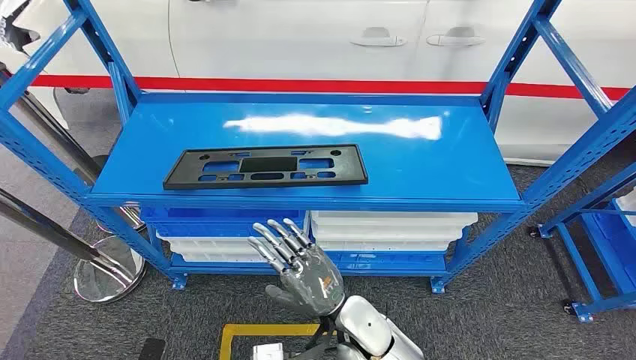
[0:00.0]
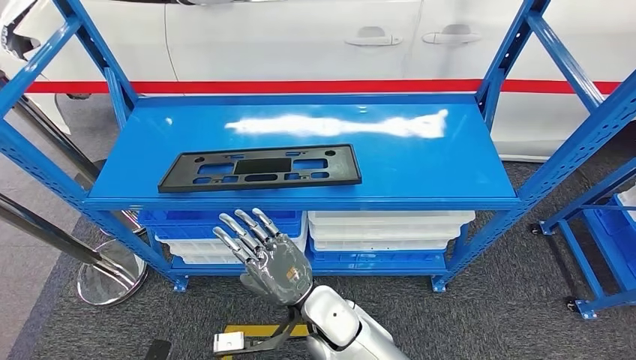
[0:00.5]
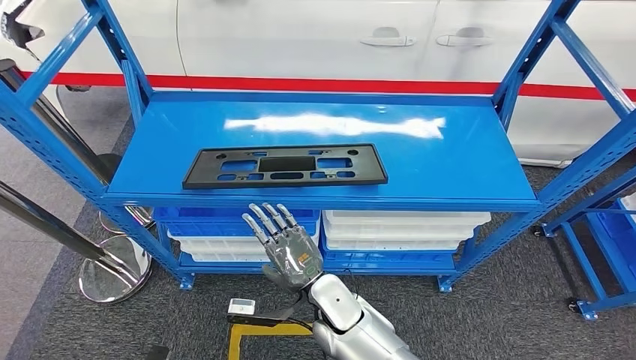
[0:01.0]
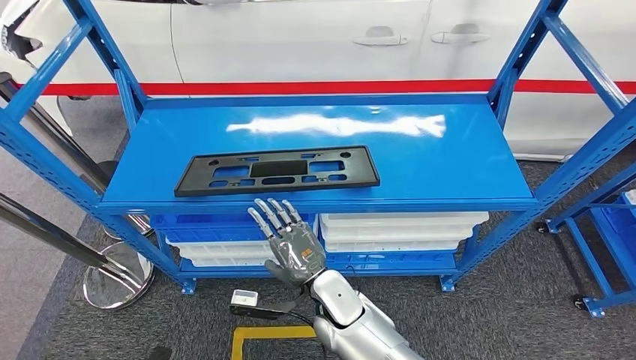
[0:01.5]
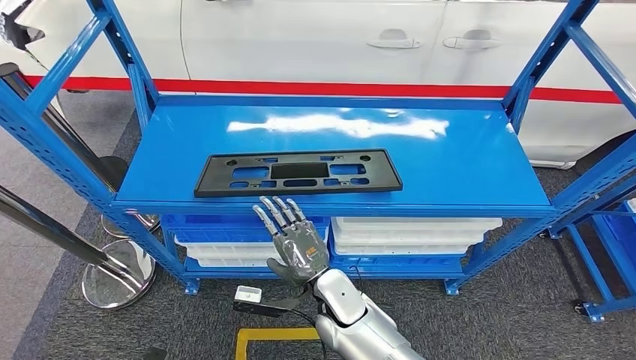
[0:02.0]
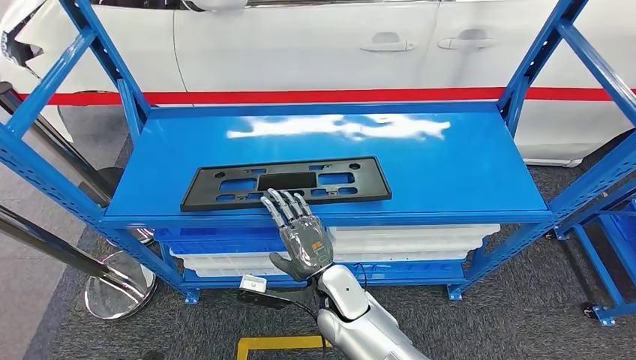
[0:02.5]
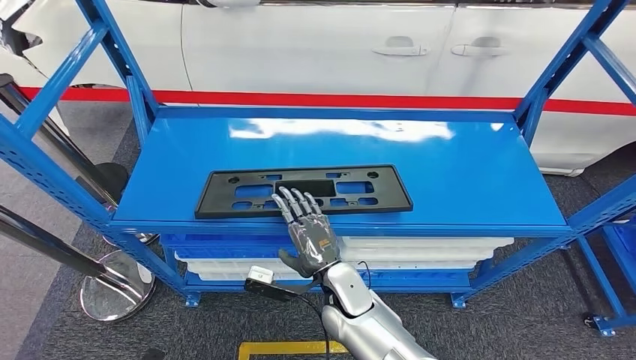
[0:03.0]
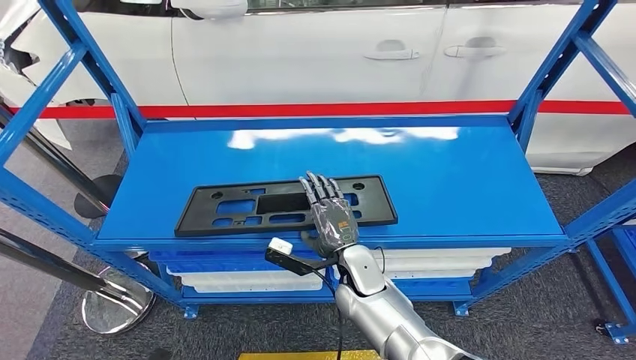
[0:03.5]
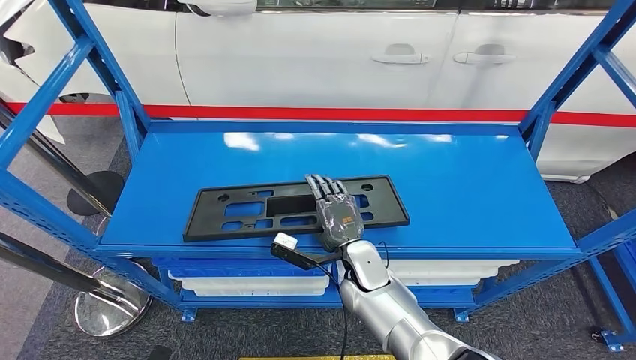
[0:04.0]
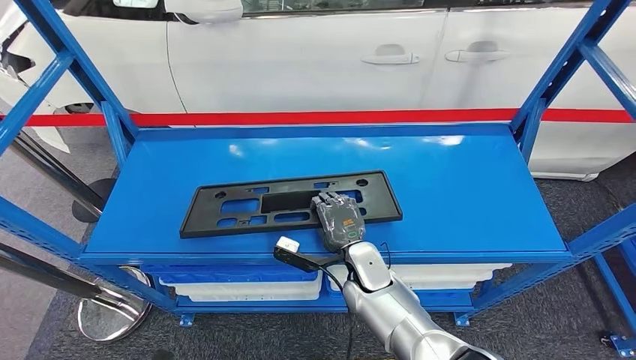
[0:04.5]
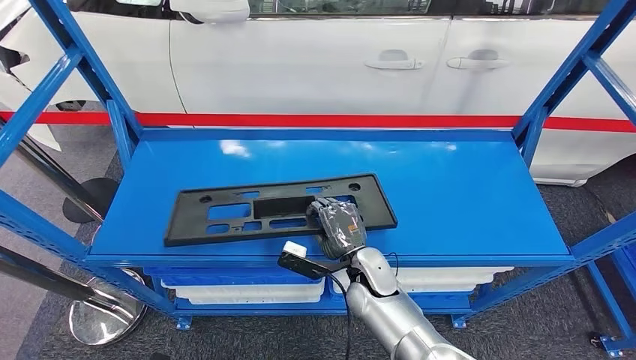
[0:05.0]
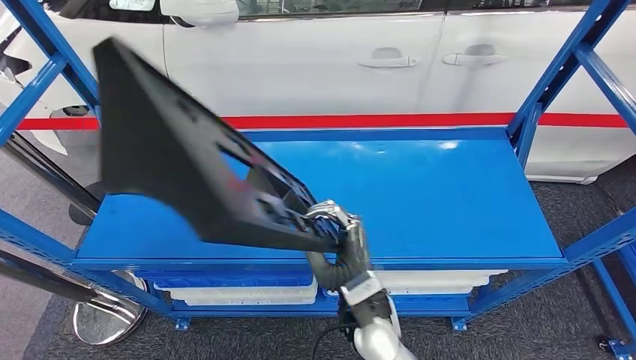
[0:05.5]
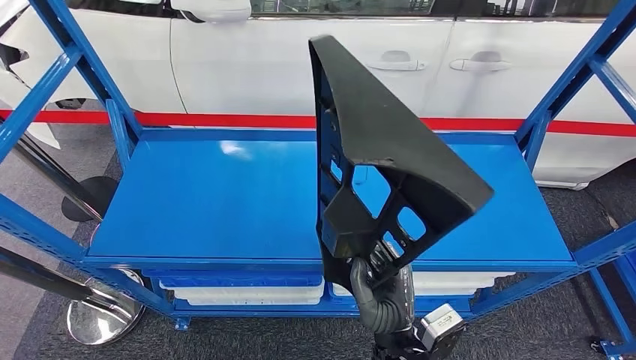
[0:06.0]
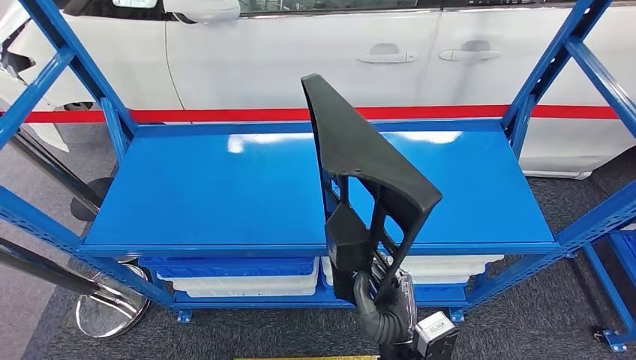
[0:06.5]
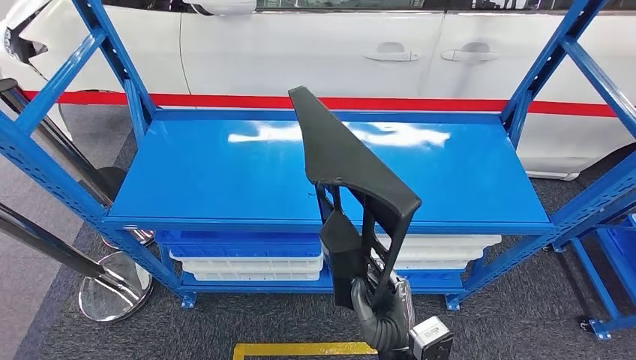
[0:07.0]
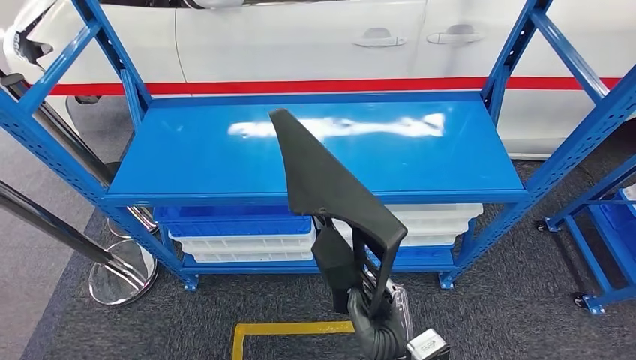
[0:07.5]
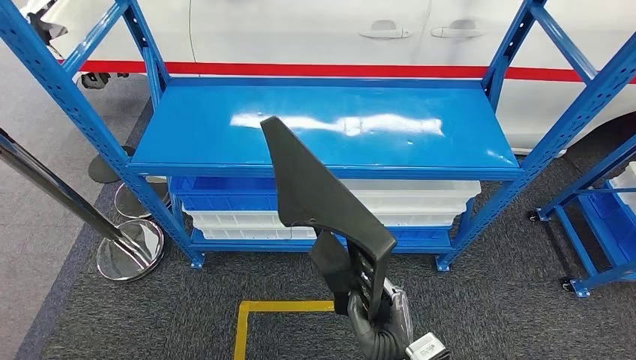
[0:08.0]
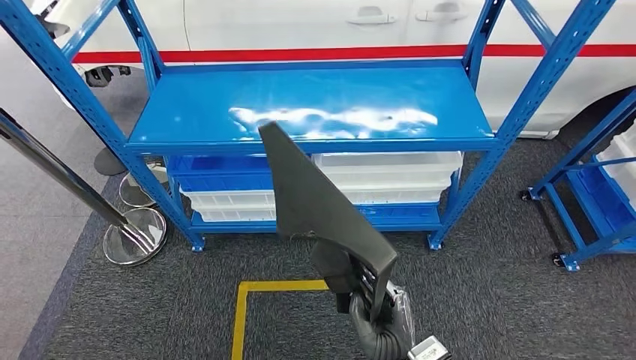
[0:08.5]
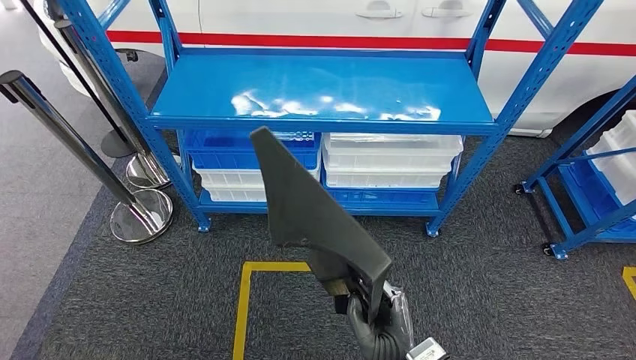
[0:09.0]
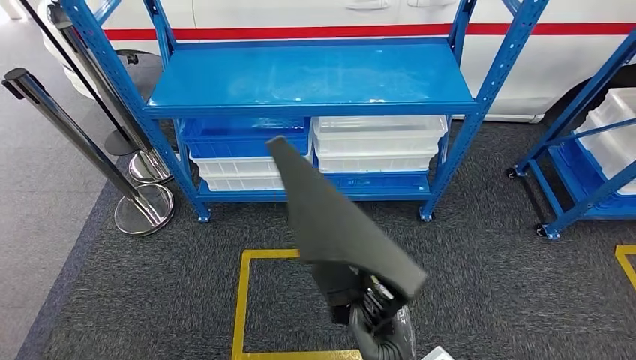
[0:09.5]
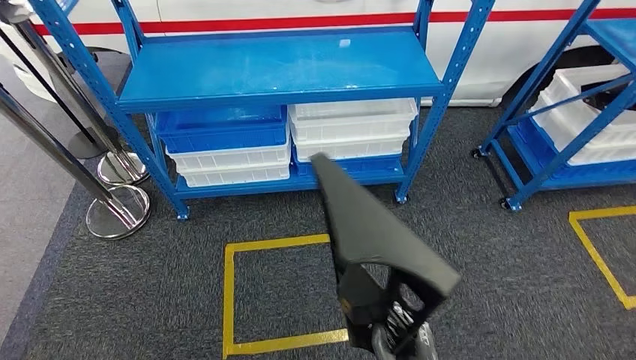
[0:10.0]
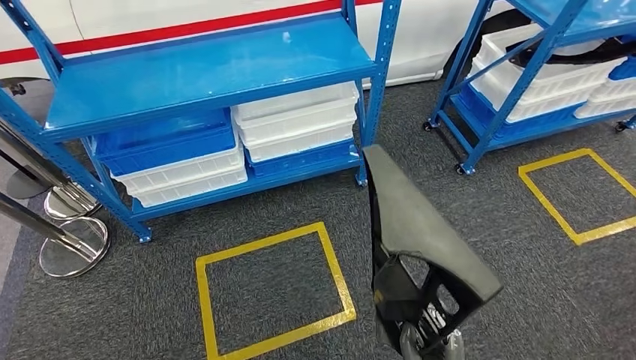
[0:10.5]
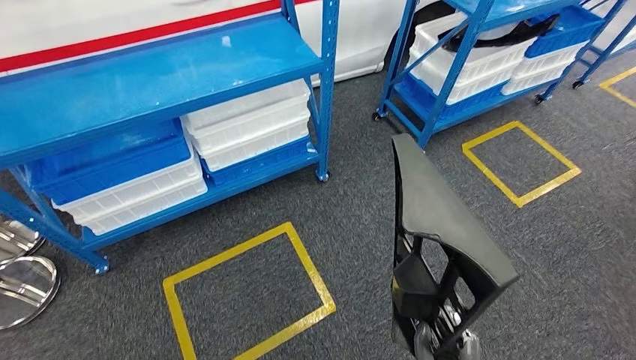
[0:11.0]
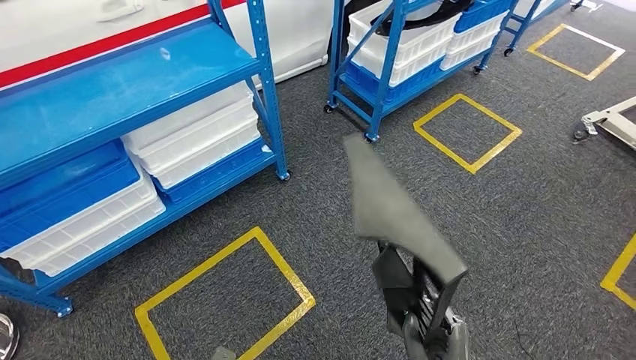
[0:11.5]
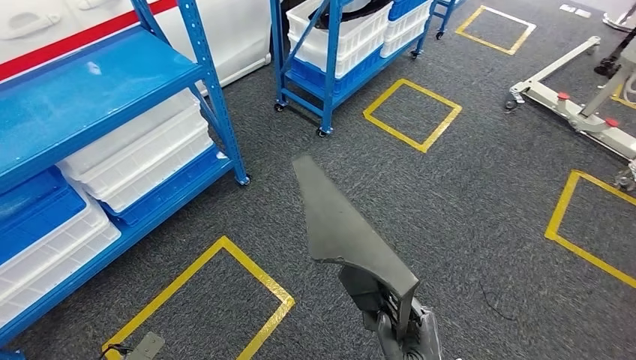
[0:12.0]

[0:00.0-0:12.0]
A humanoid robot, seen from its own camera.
Step, 0:00.0 to 0:08.0: Pick up the large material from the shelf.

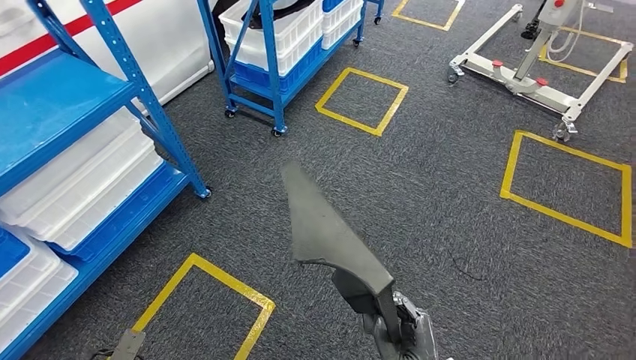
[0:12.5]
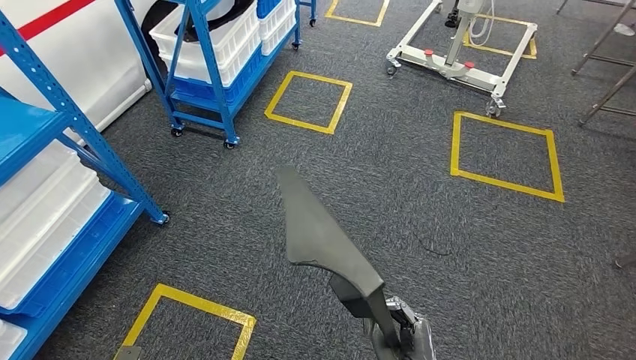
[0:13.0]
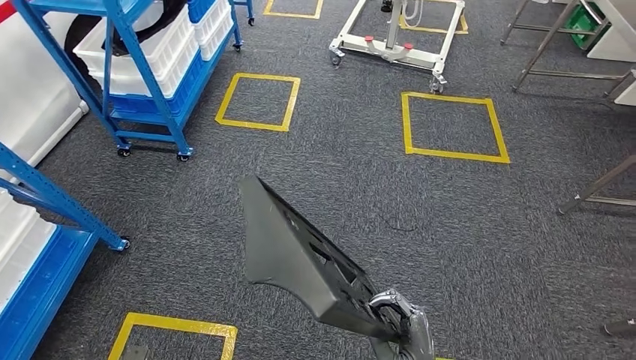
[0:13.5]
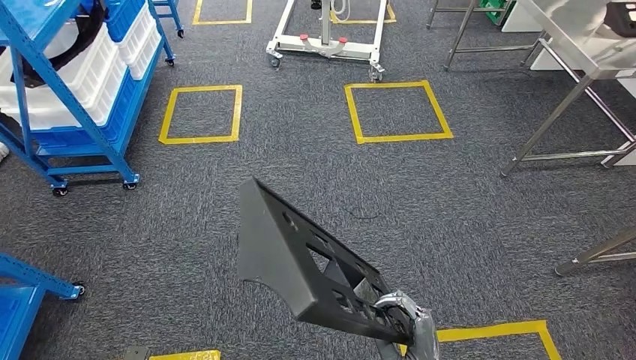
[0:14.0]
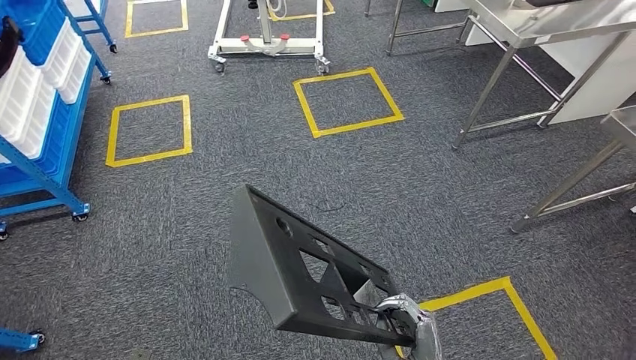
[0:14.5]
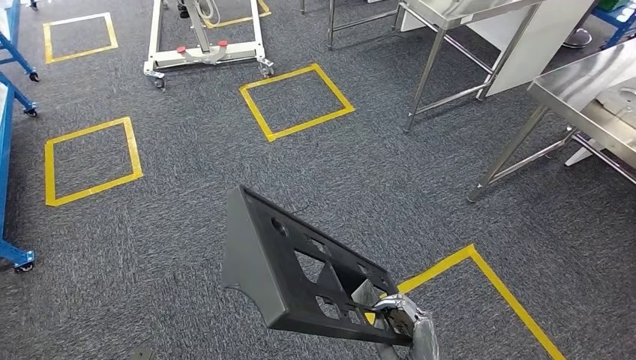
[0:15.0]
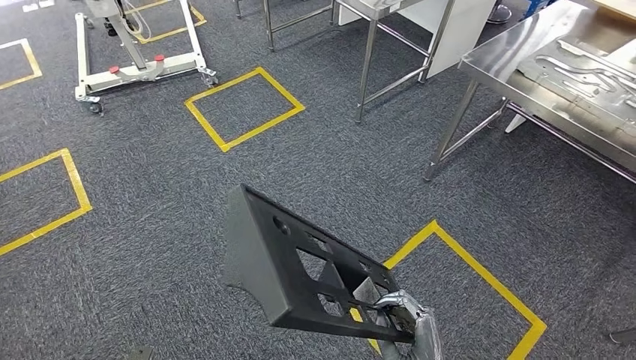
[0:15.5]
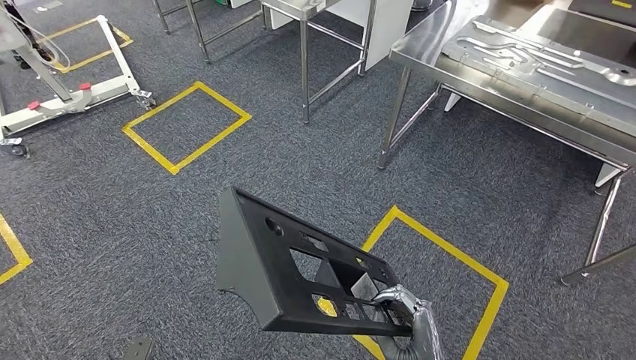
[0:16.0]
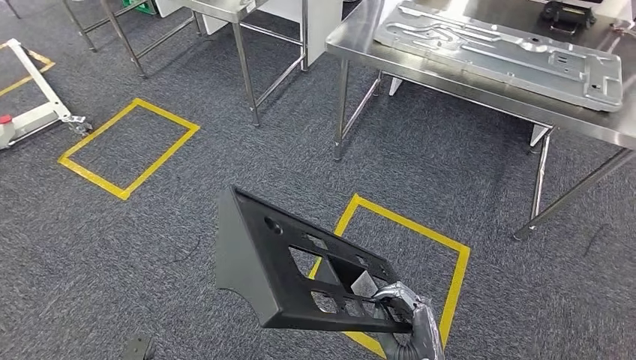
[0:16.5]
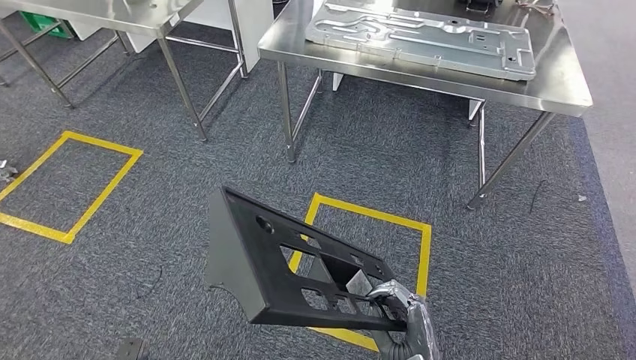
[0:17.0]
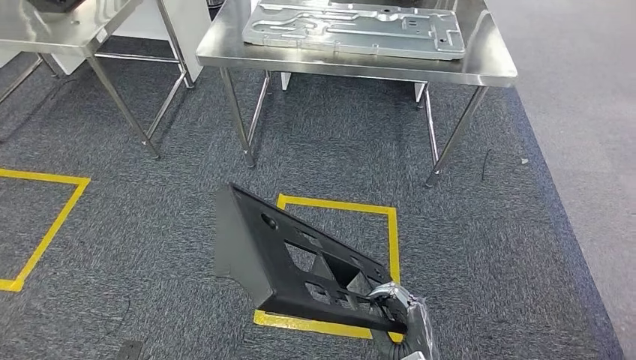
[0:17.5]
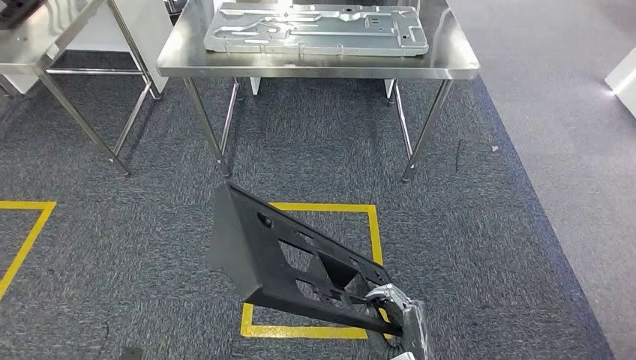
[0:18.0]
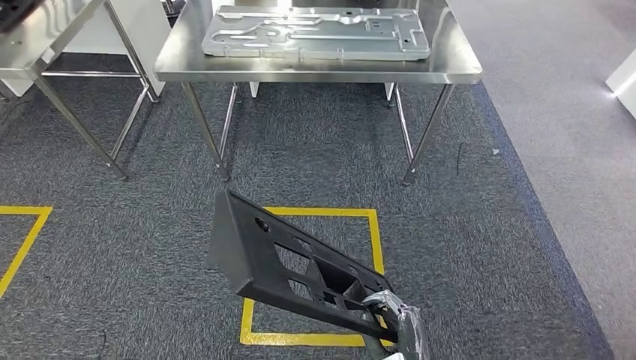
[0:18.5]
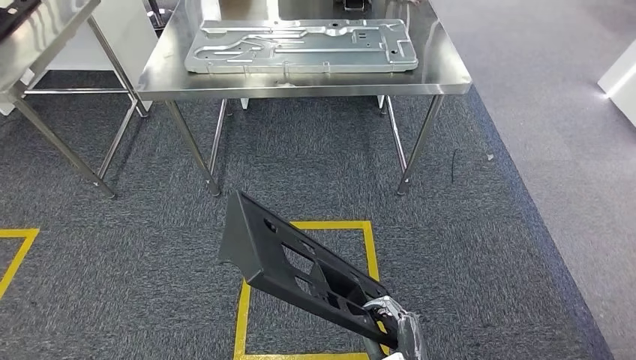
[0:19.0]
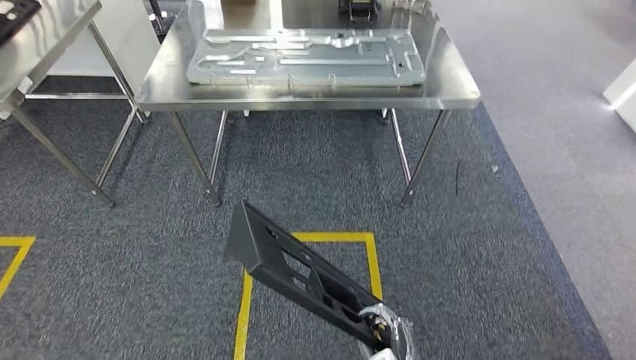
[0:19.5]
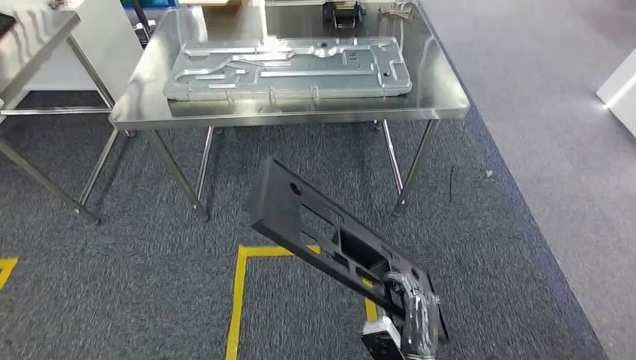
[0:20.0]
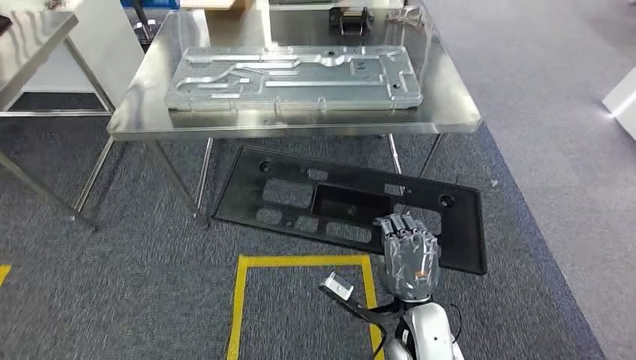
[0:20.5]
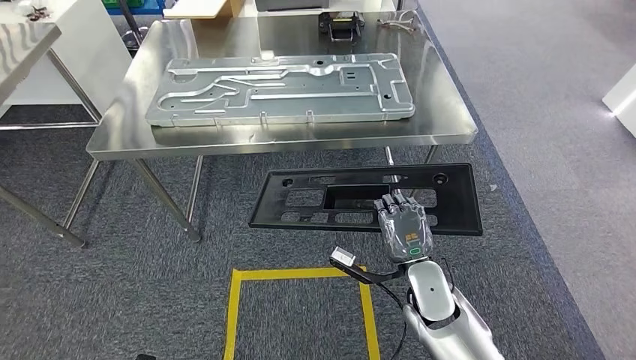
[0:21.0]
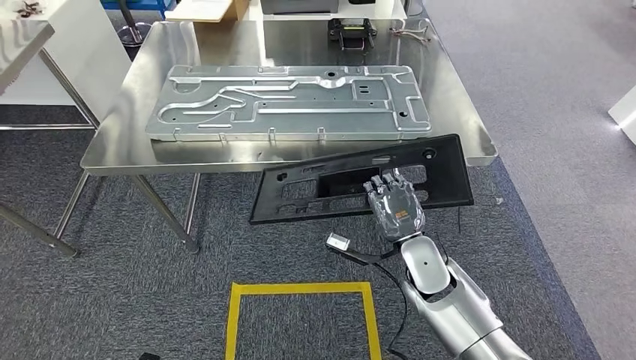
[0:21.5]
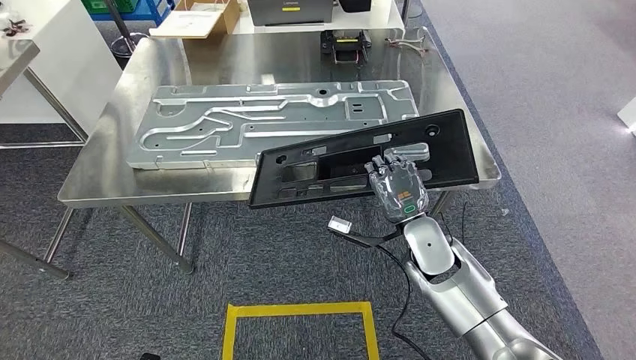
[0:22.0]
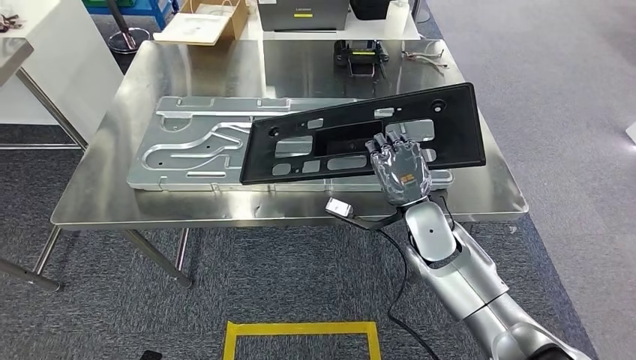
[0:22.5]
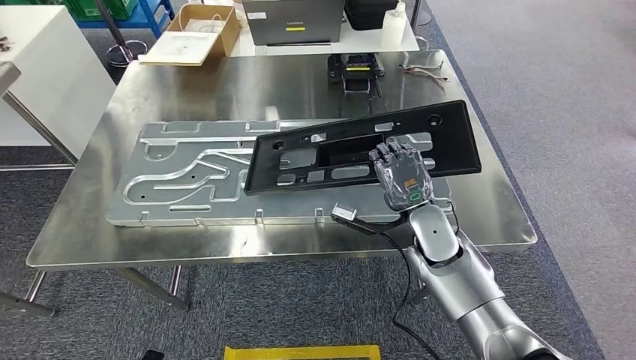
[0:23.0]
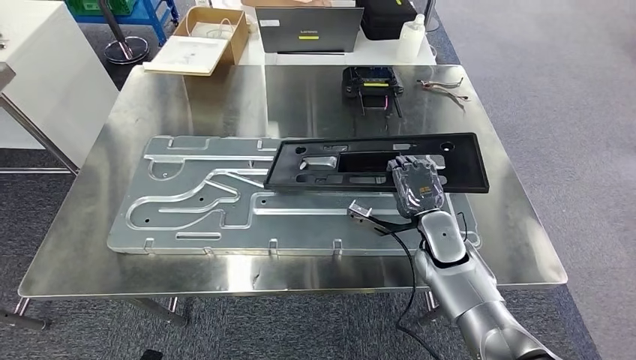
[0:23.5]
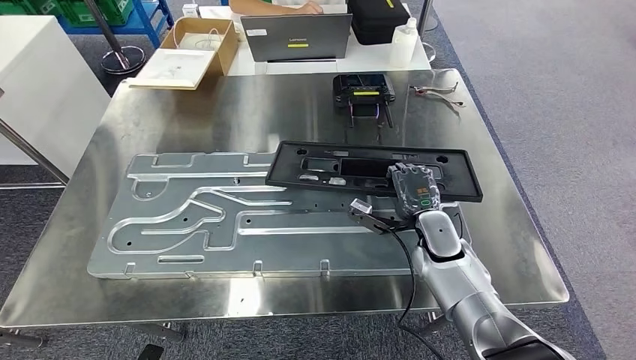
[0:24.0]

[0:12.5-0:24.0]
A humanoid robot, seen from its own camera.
Step, 0:12.5 to 0:21.5: Move the large material to the workbench.
